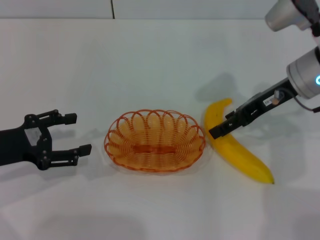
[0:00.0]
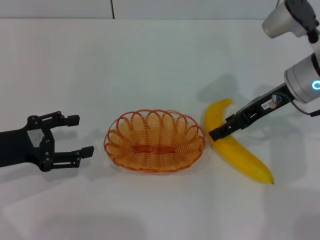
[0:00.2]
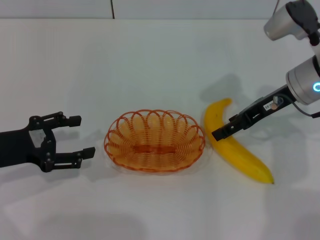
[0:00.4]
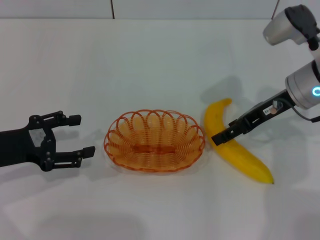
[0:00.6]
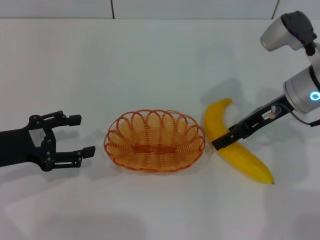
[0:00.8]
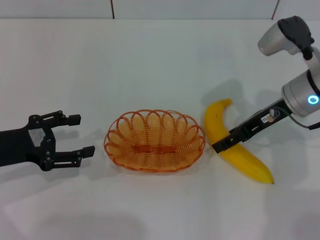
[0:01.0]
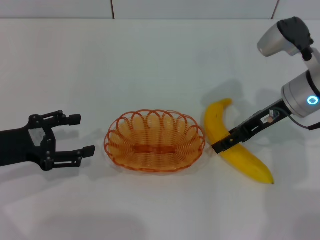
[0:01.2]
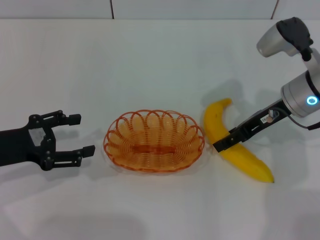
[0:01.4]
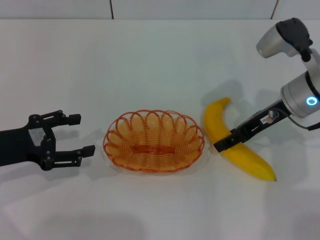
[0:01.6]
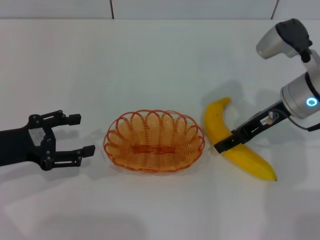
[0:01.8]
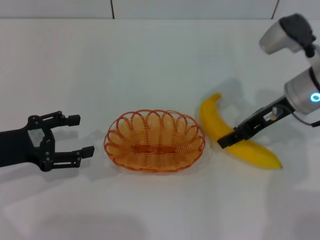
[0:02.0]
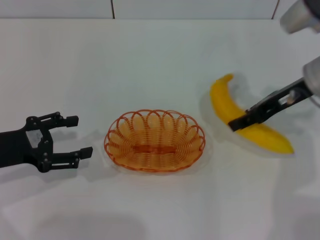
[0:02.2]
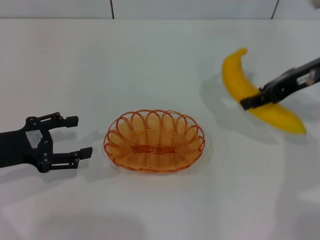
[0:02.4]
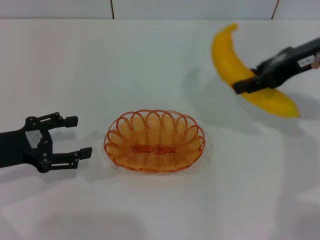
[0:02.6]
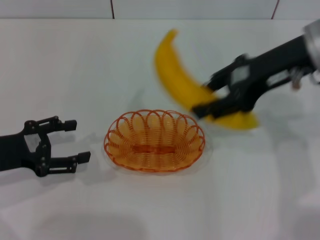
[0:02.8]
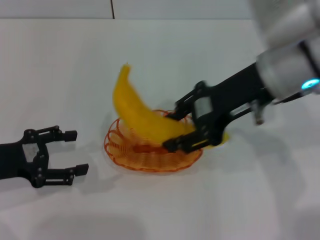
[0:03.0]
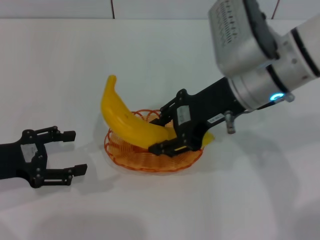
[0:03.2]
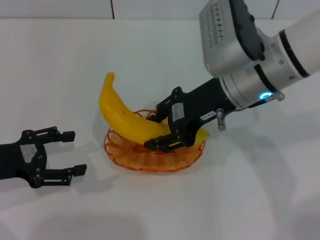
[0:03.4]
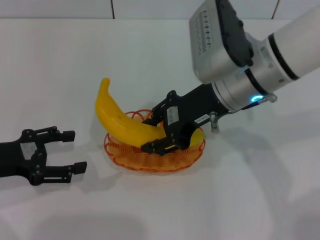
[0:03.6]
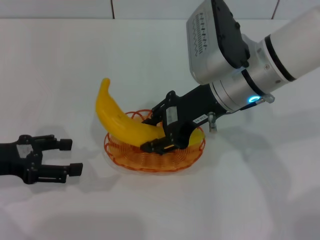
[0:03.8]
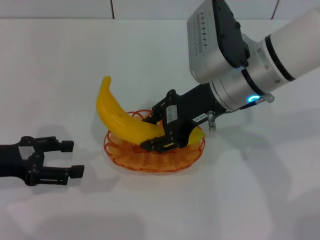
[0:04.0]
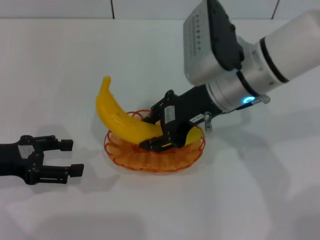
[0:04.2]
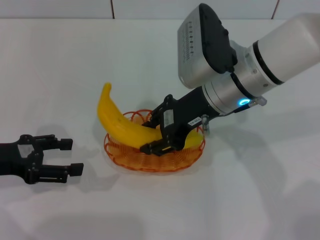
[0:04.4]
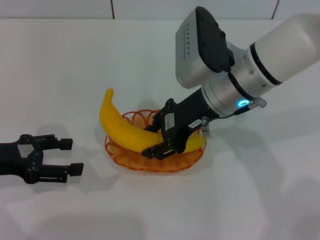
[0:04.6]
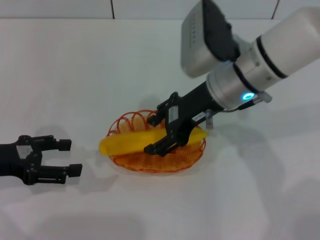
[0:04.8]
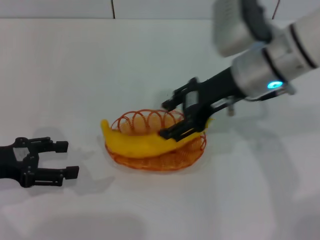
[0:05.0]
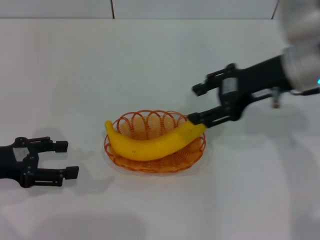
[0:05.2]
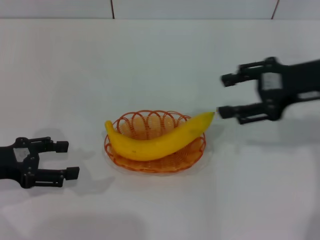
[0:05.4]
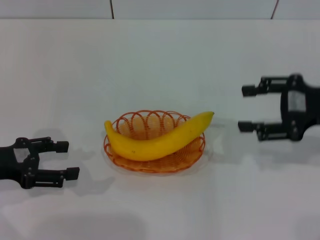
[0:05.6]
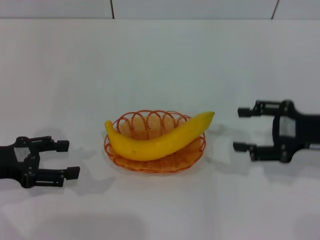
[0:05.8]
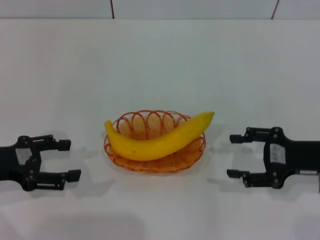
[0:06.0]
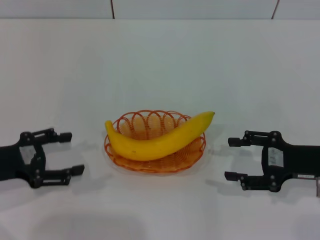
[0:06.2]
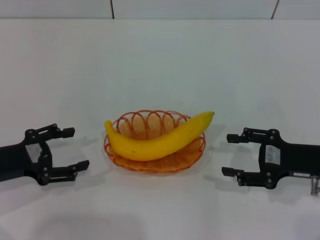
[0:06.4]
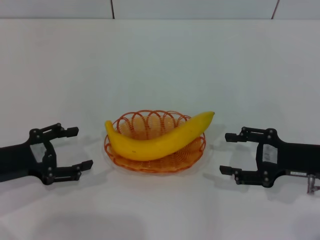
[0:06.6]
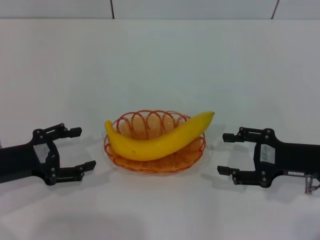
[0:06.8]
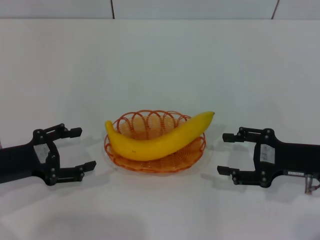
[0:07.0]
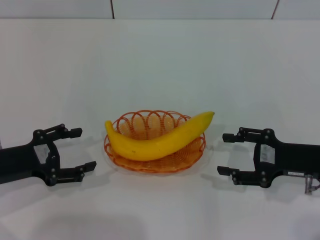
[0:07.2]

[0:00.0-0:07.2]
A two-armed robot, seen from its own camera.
Step, 0:00.0 to 0:02.0: Pick up the banana with the right gripper.
Step, 0:02.4 to 0:05.0: Place the banana into the basket with the right gripper.
0:00.0 to 0:01.4: There are only small adjustments of the grippers.
0:01.4 to 0:02.8: The right gripper travels upward by some 10 cm, and closes up.
0:02.8 to 0:04.4: The right gripper travels to the left and downward by about 10 cm.
0:04.4 to 0:05.8: The right gripper goes about 20 cm to the right, and opens up.
0:05.8 to 0:07.2: The right gripper is displaced downward by approximately 5 cm.
